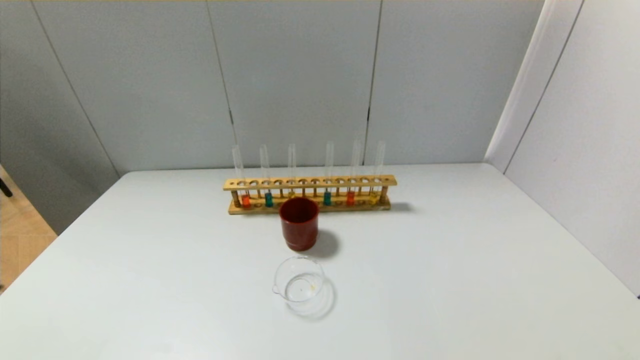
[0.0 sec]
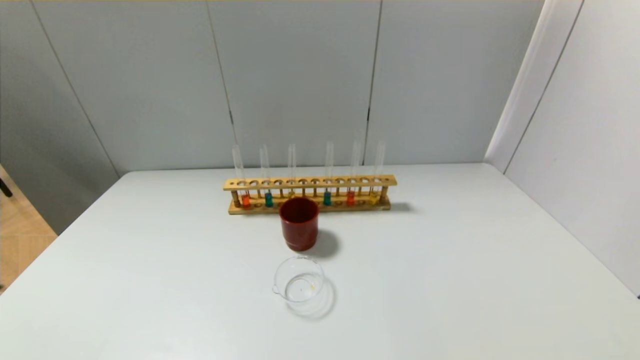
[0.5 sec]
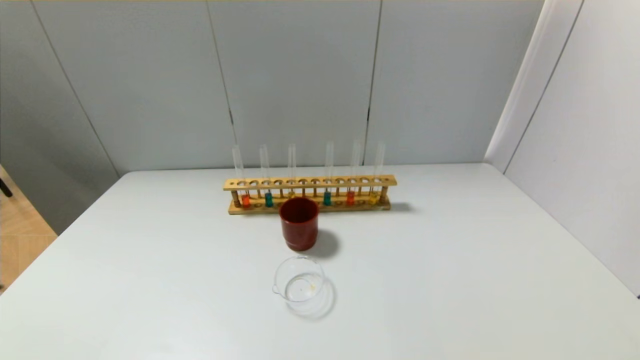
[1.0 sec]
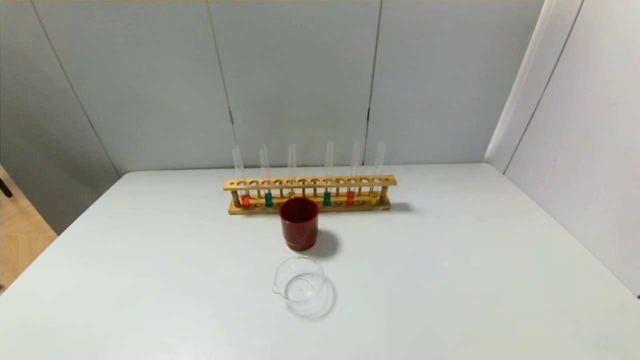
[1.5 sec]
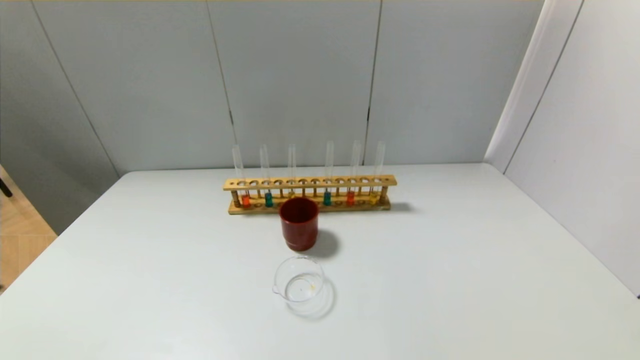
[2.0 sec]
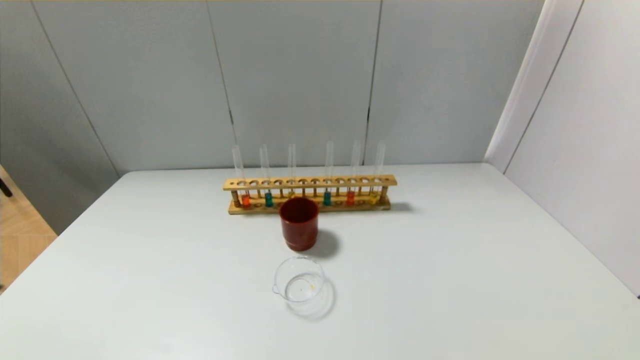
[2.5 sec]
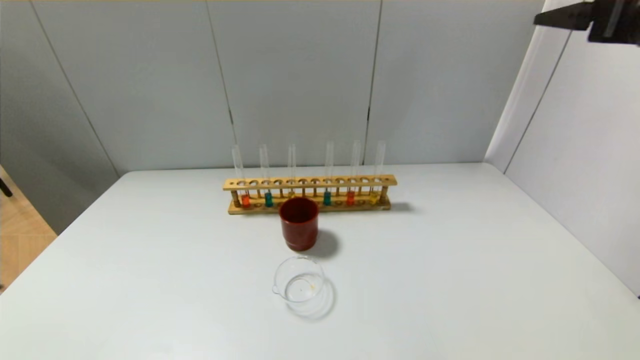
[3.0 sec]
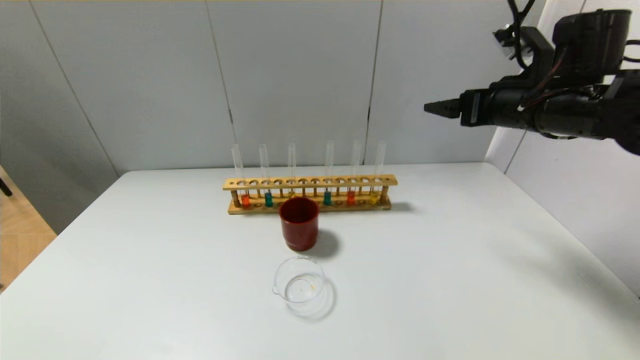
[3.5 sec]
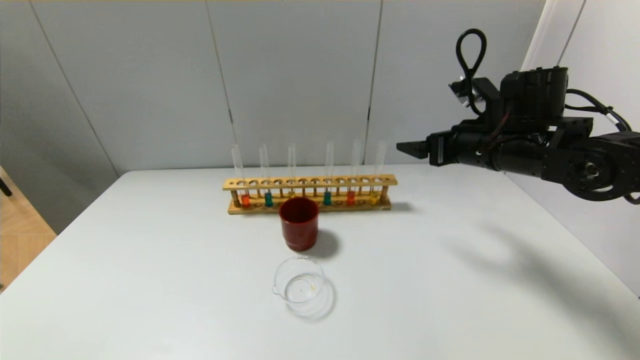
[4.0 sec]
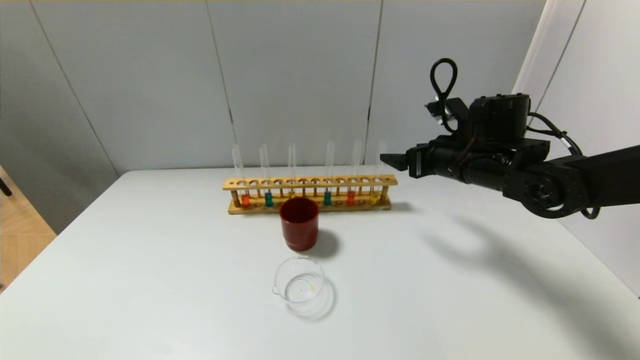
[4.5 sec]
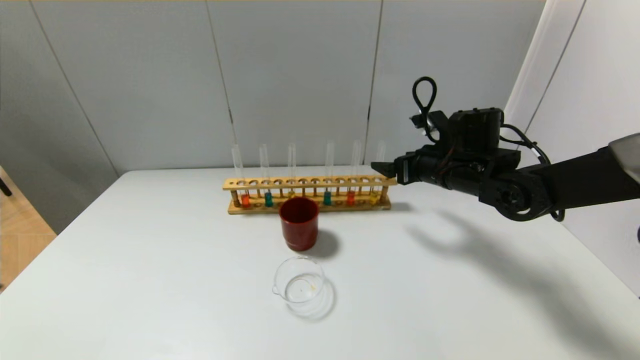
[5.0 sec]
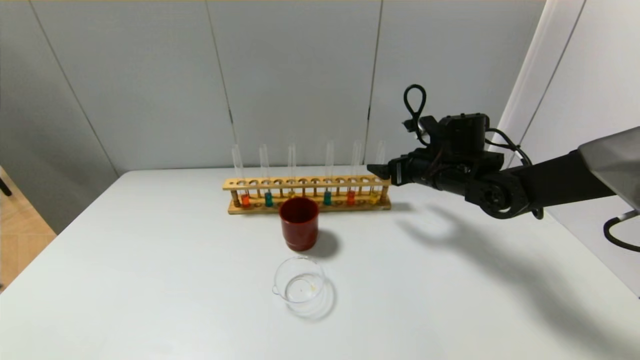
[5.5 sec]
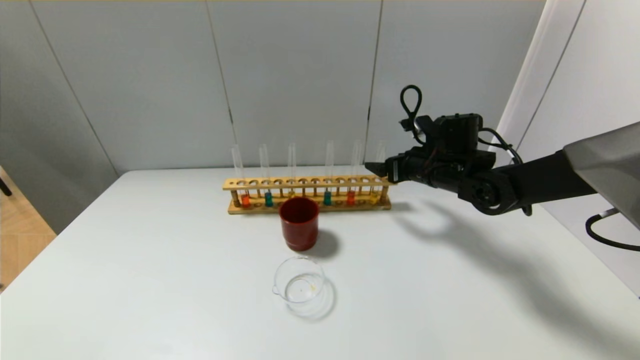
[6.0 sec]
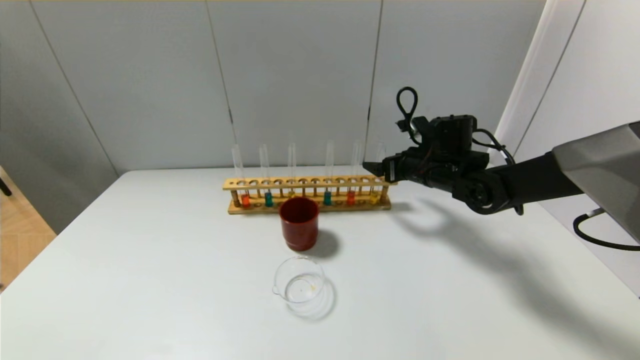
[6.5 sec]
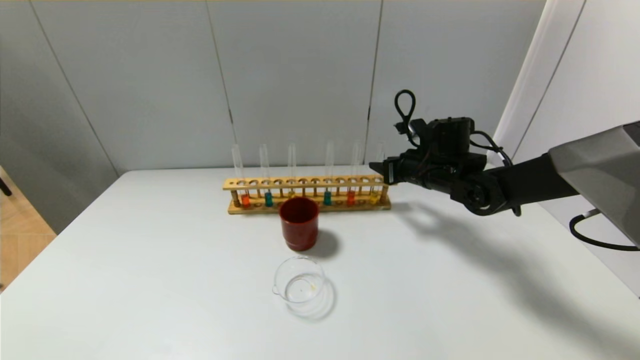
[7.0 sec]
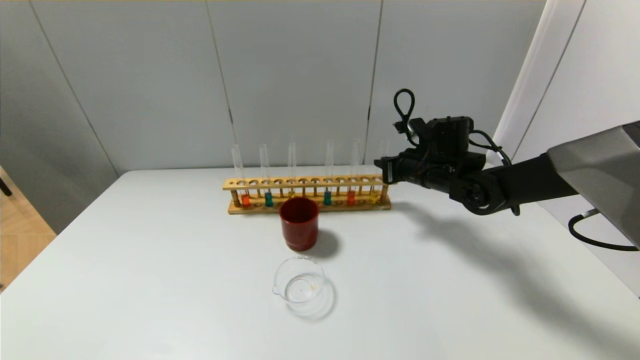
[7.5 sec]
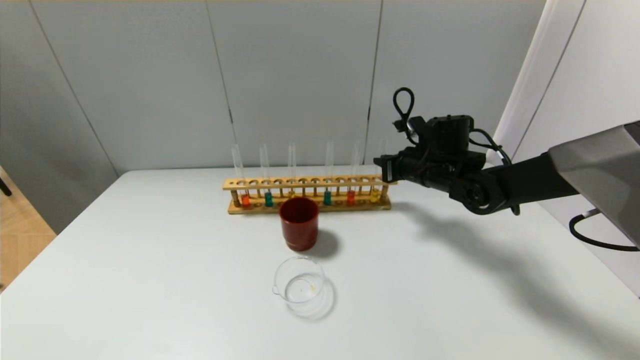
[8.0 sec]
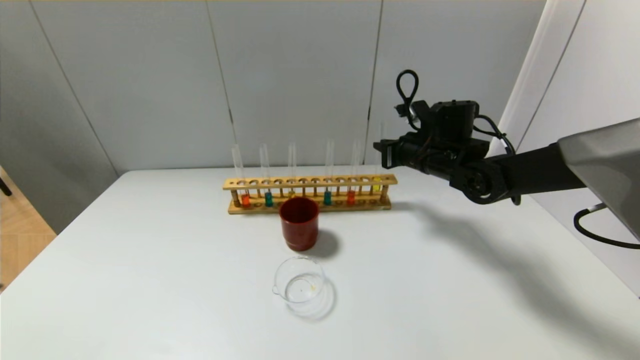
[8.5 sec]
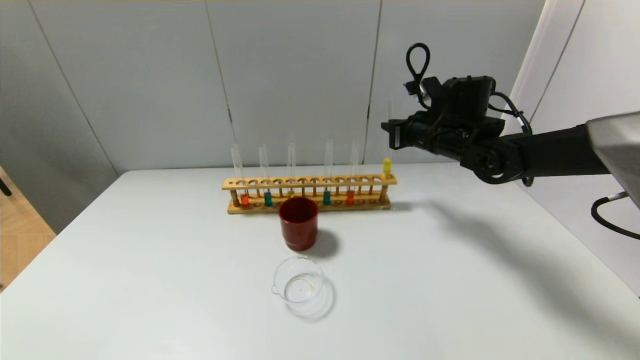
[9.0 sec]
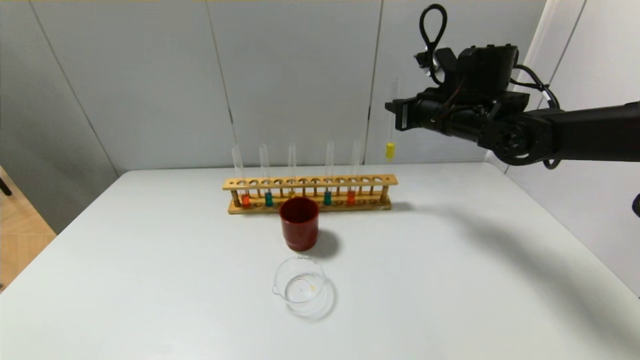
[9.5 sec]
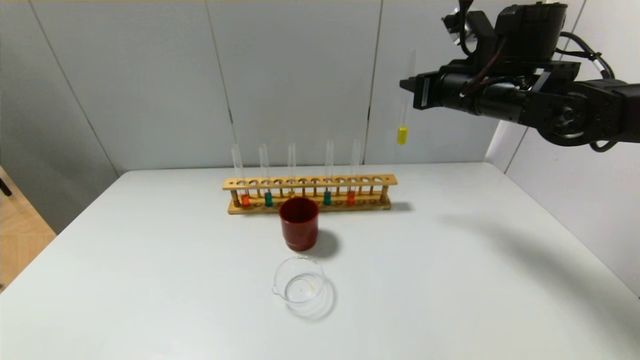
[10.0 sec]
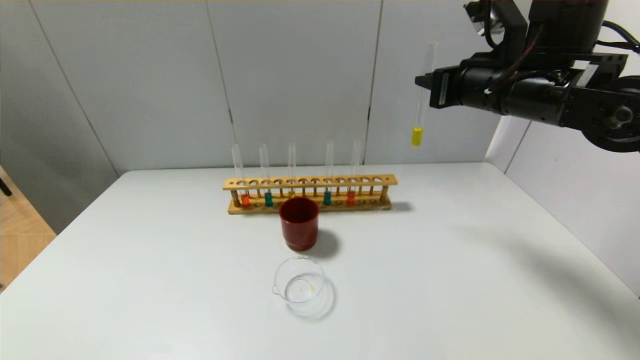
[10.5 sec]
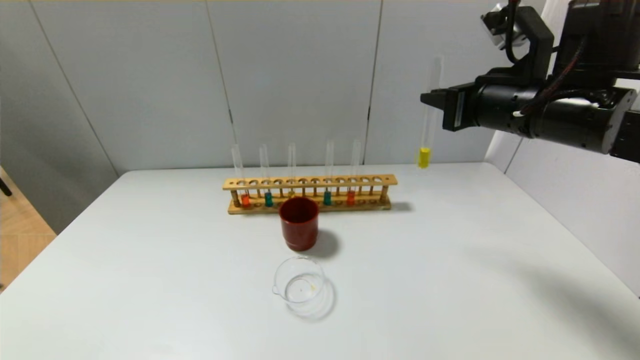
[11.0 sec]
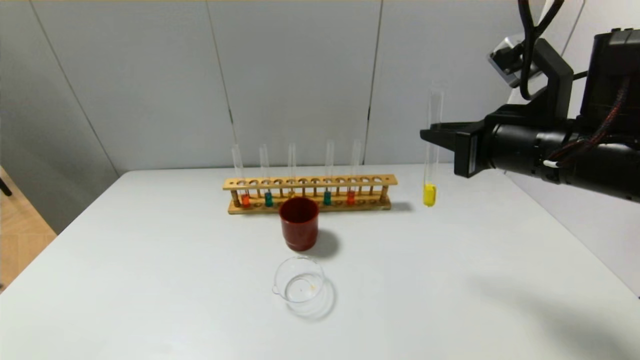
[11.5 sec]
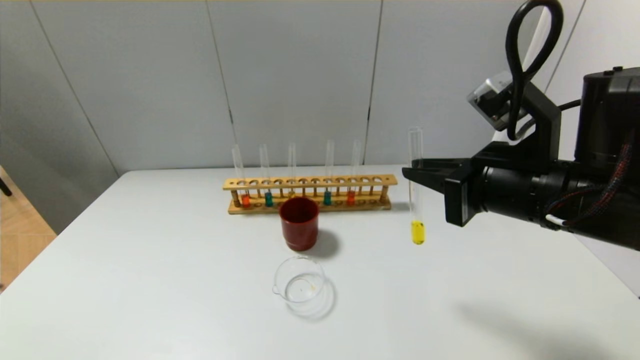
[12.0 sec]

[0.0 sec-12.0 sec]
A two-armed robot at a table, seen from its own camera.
Step, 0.0 sec to 7.0 sec: Grasp the yellow reagent with the right gripper.
2.0 sec to 4.0 sec: The right gripper heads forward, covering approximately 35 cm.
4.0 sec to 6.0 sec: The right gripper shifts approximately 10 cm downward and forward.
6.0 sec to 8.0 sec: The right gripper closes its fingers.
8.0 sec to 10.0 sec: The right gripper heads upward, covering approximately 15 cm.
10.0 sec to 12.0 sec: The right gripper shifts roughly 15 cm backward.

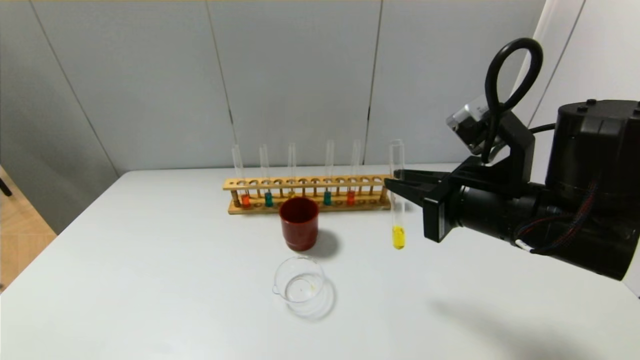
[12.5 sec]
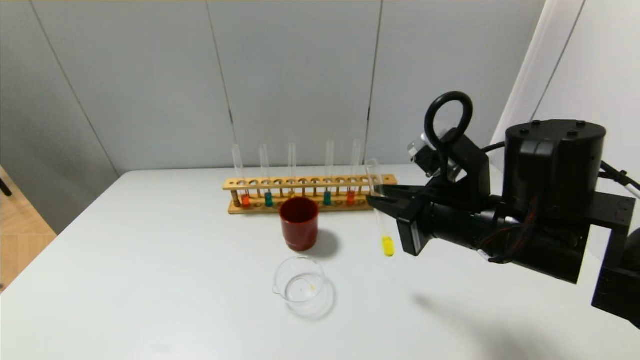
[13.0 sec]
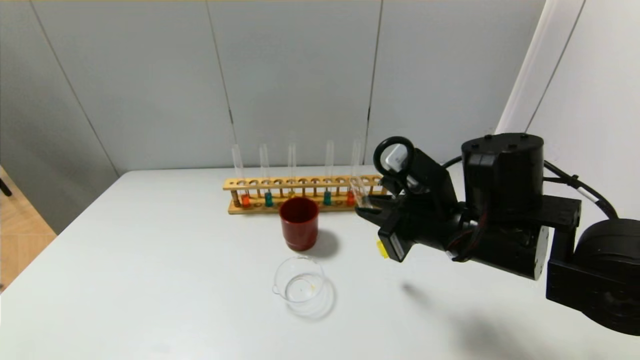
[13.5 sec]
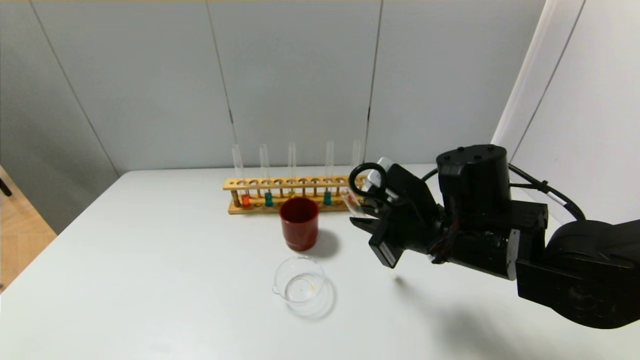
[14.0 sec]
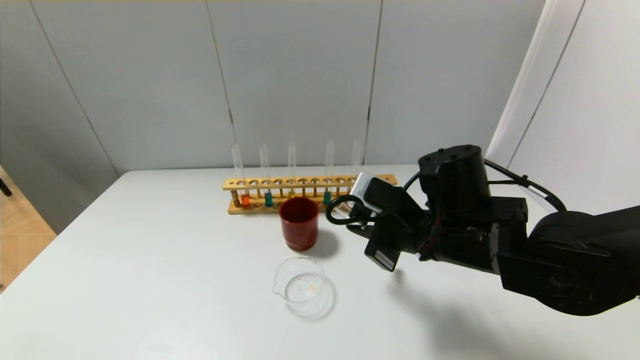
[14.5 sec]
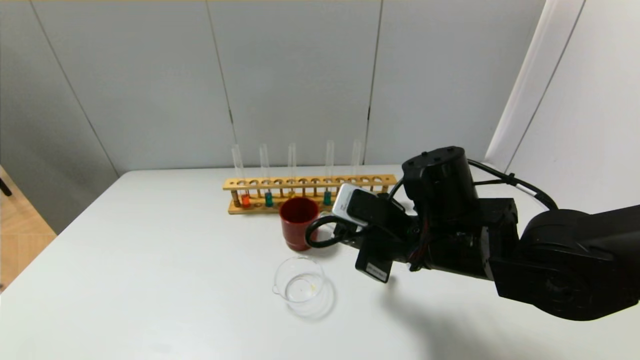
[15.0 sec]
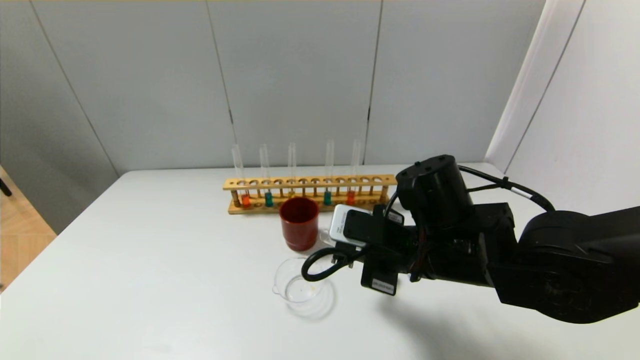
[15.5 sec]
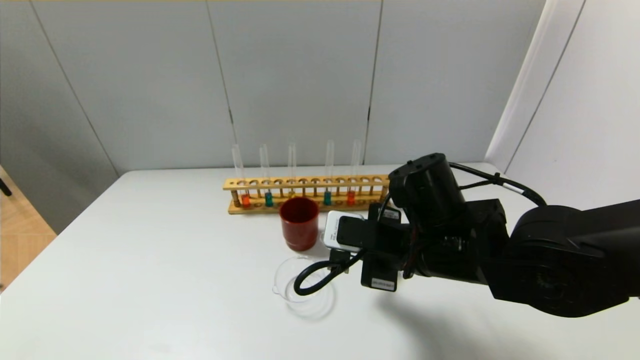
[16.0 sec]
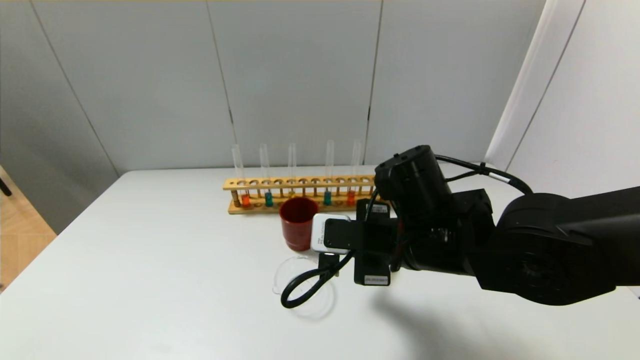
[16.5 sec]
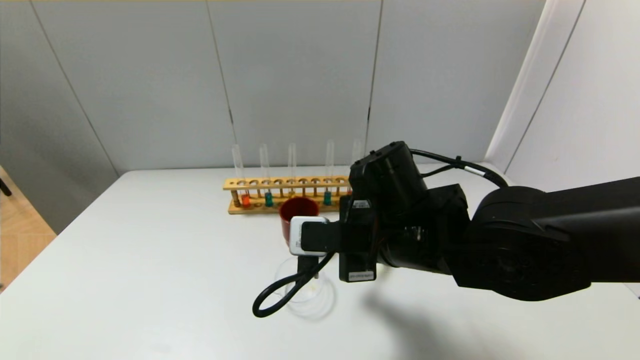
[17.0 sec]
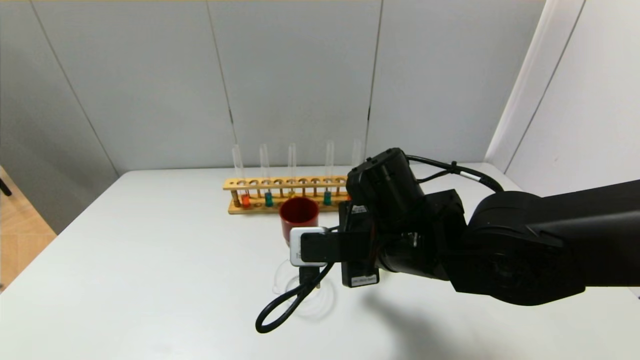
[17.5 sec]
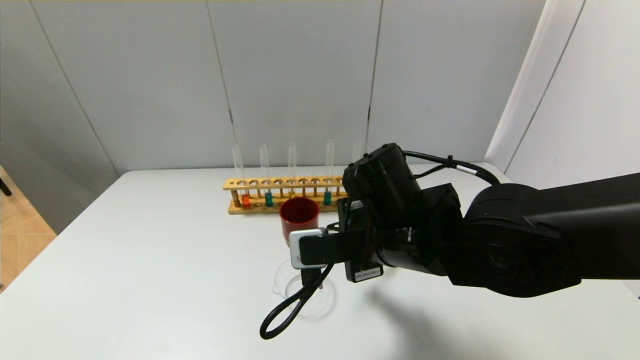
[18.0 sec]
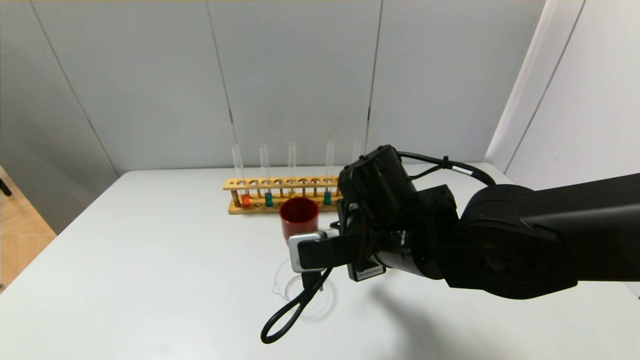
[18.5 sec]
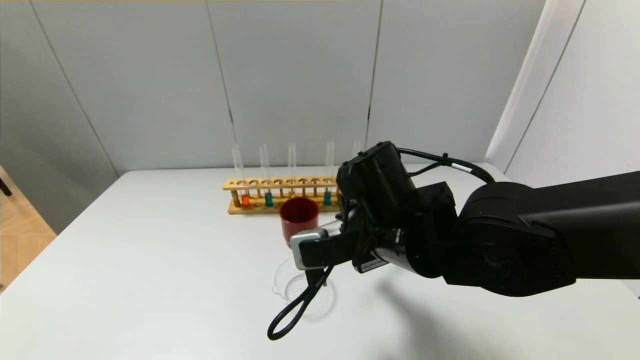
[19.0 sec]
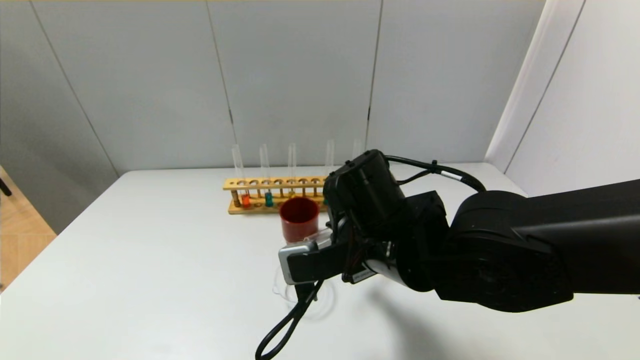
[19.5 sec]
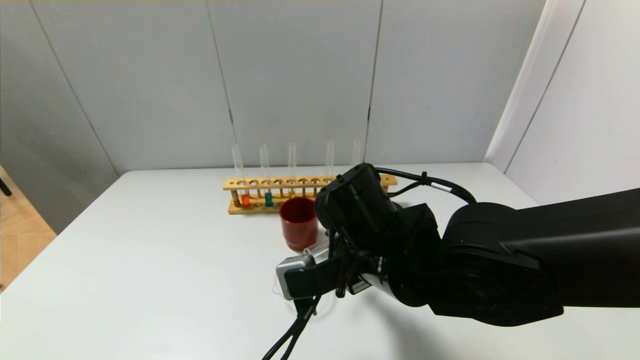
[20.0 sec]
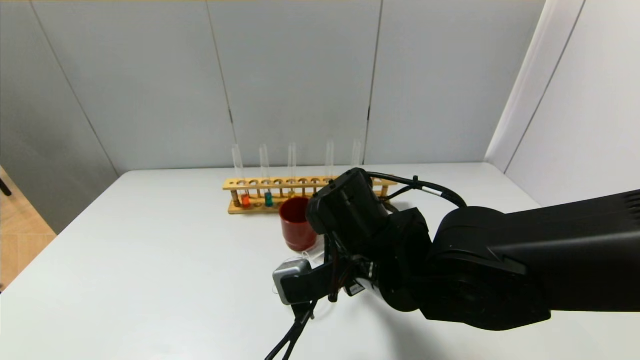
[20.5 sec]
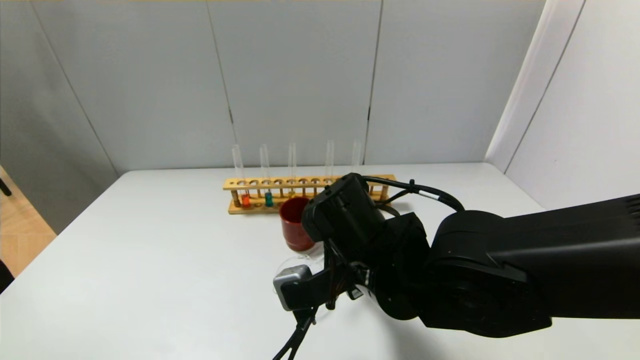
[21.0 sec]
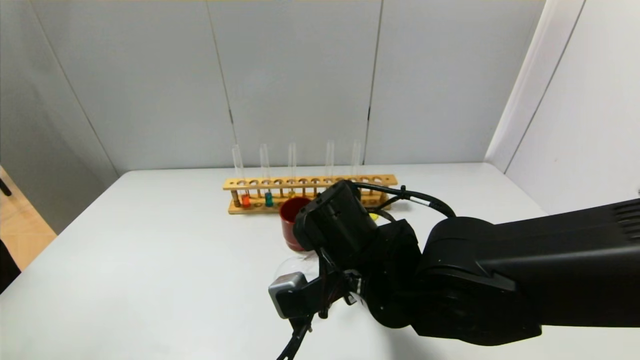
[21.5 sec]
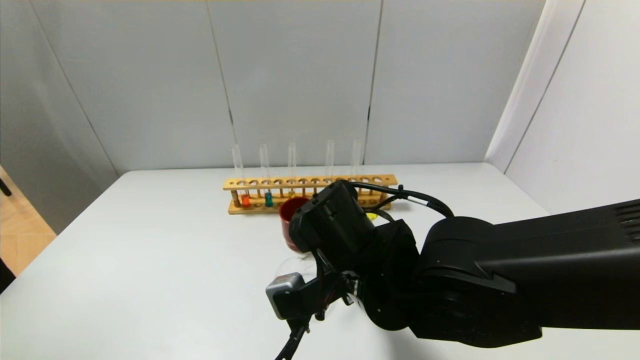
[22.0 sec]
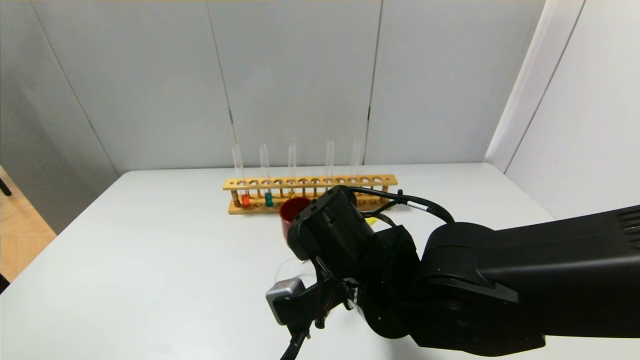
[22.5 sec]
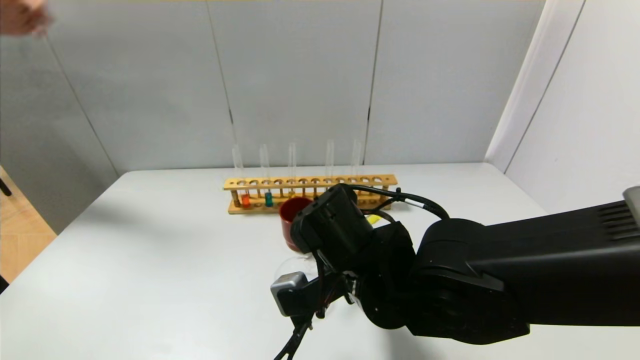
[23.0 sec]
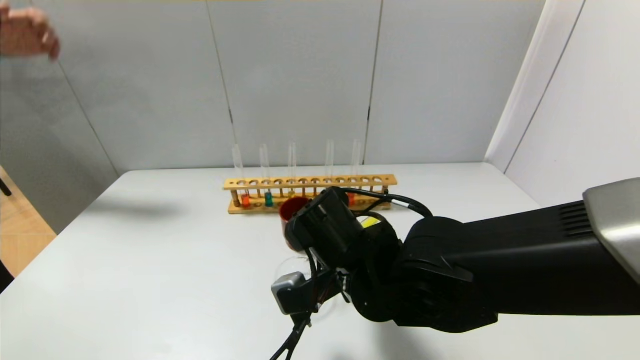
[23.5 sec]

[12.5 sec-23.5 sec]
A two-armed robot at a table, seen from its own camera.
12.5 sec to 14.5 sec: The right gripper travels downward by some 5 cm.
14.5 sec to 16.0 sec: The grippers move only a little.
18.0 sec to 20.0 sec: The grippers make only small movements.
20.0 sec to 23.5 sec: The grippers make only small movements.
